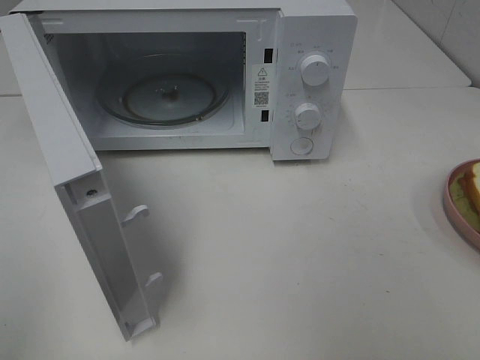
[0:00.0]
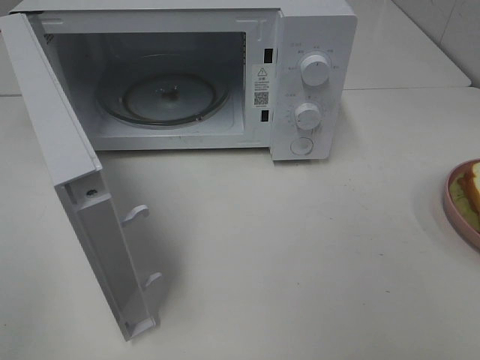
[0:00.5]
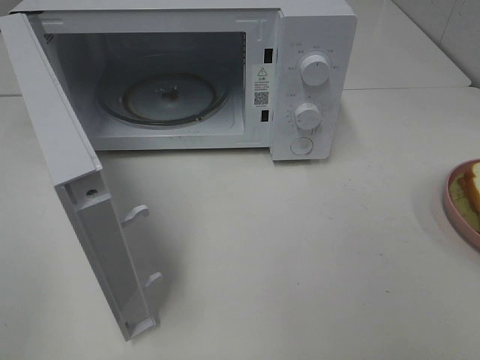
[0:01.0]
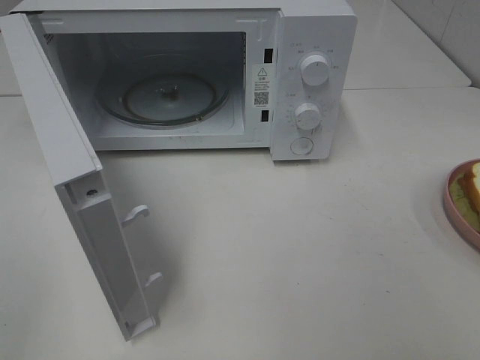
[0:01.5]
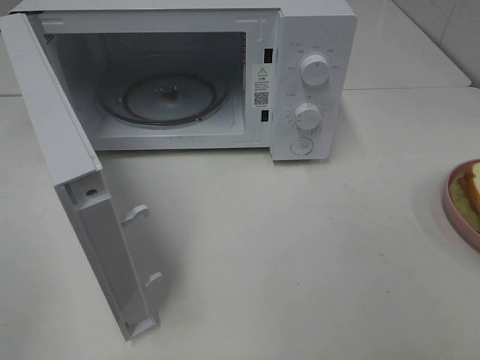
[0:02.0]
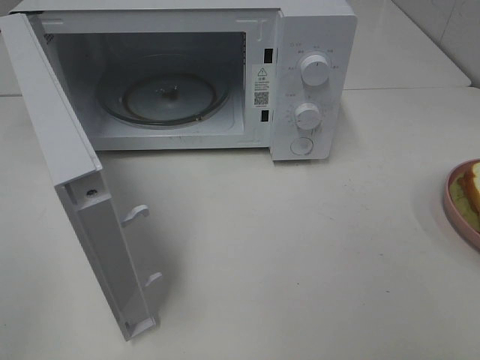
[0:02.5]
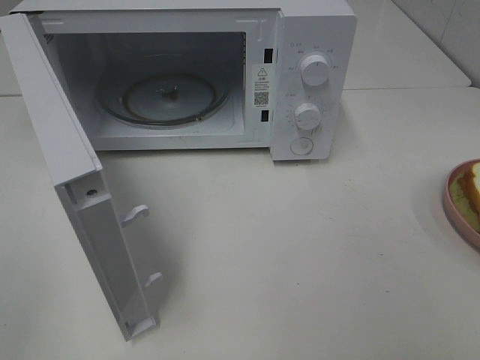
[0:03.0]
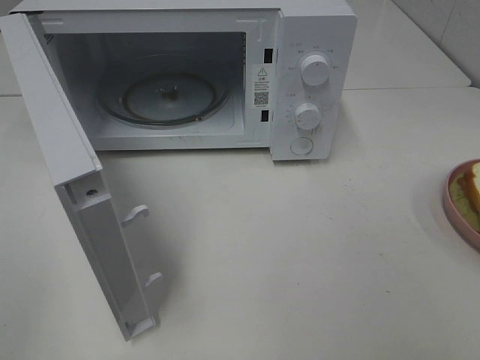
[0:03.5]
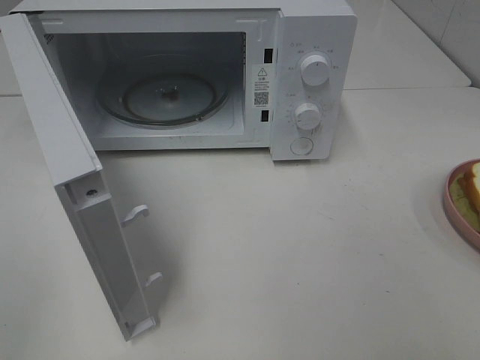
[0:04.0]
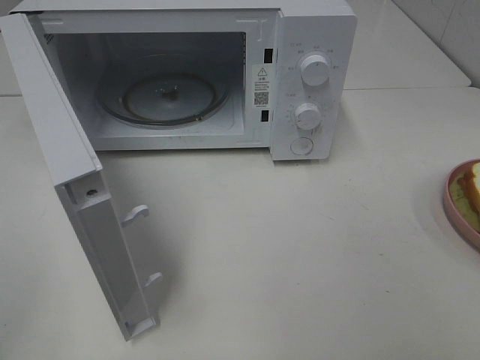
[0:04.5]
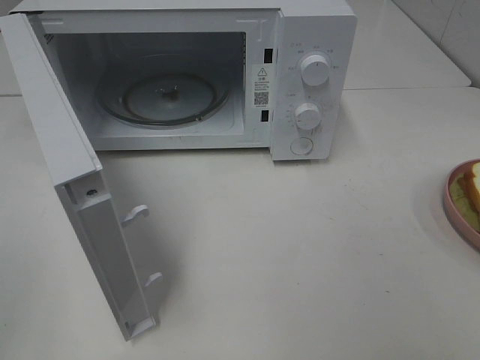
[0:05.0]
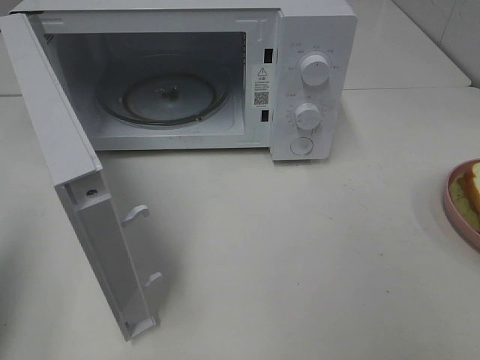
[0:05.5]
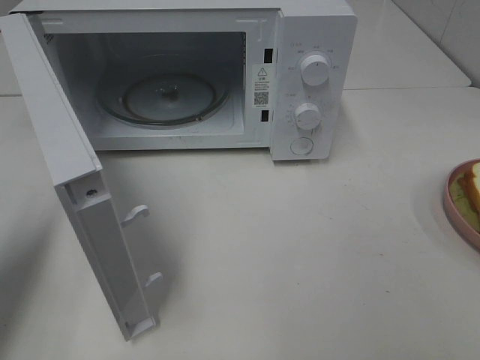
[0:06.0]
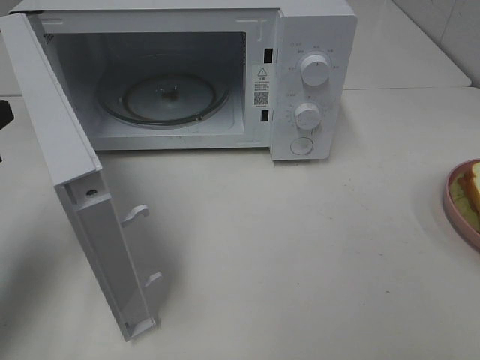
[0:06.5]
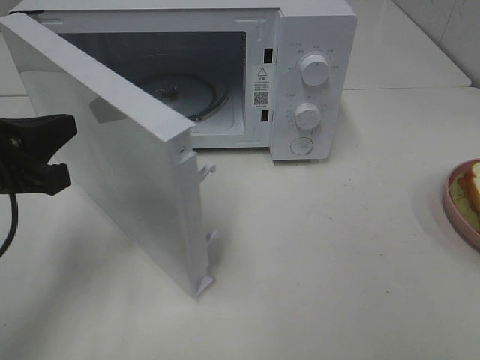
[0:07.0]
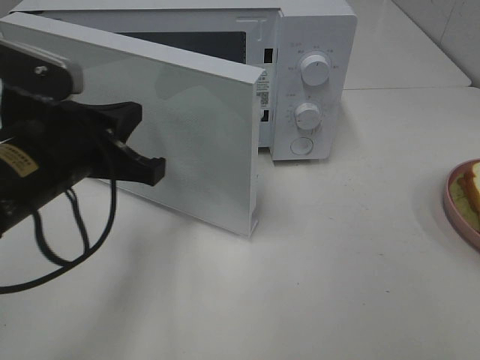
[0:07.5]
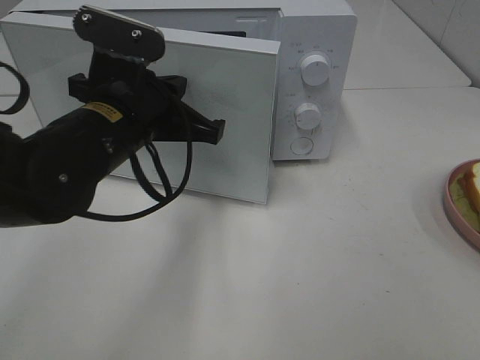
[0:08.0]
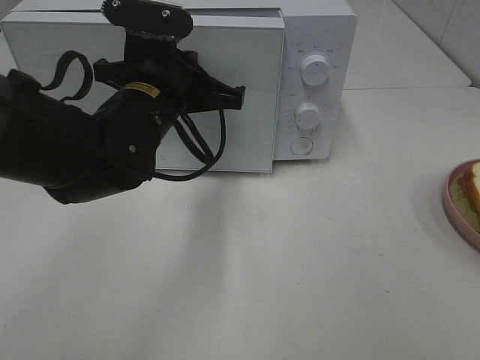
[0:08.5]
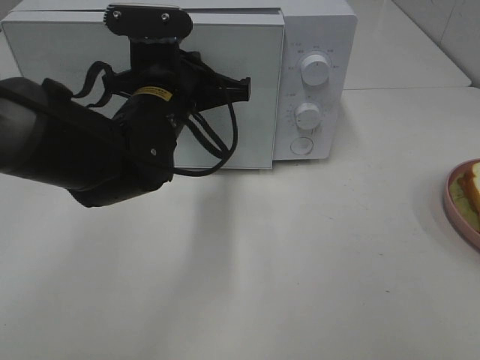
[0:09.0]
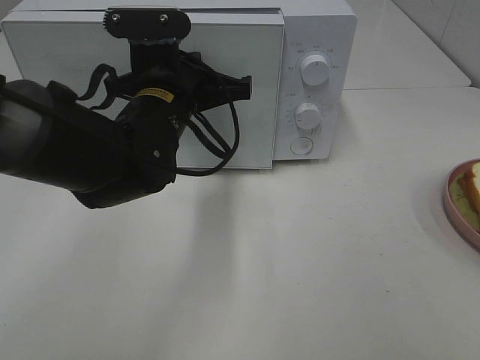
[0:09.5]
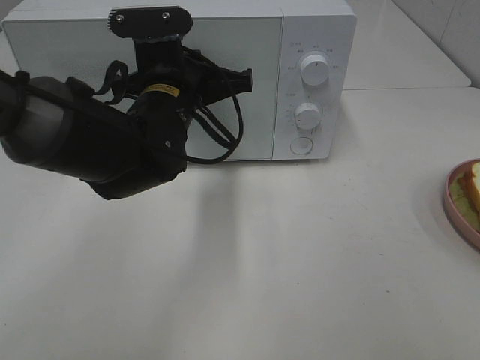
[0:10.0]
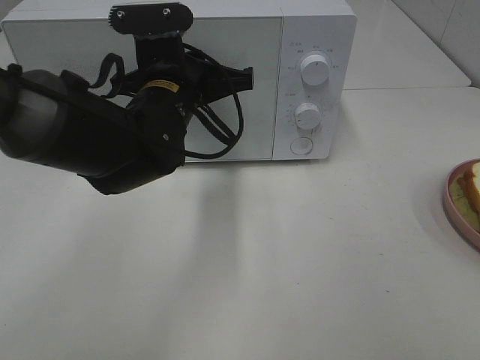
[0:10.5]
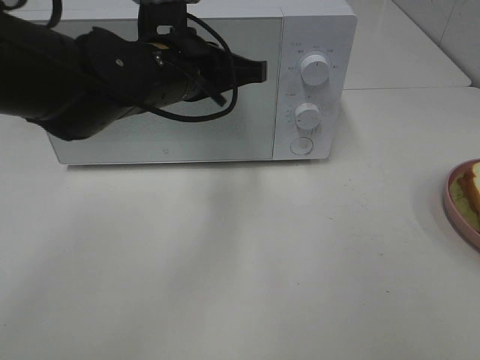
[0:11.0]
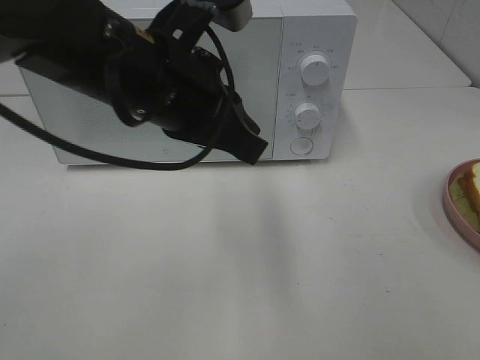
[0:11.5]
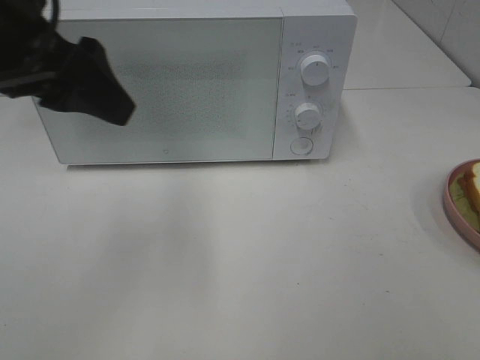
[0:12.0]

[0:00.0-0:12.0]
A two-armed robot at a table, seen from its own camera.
Task of the whole recording: Heat Sandwich.
Step, 0:00.0 to 0:11.5: Left hand: close the microwave door.
0:02.0 to 0:04.0: Both grippers stay about where they are.
0:04.0 to 0:06.0: The left gripper goes roughly 20 cm forward, and closes up.
0:06.0 to 0:08.0: The left gripper moves to the right, some 20 cm.
0:08.0 to 0:10.0: The left gripper moves forward, approximately 5 cm.
0:10.0 to 0:12.0: The left gripper travels upward, to the left and backward by some 20 cm, and opens its fingers.

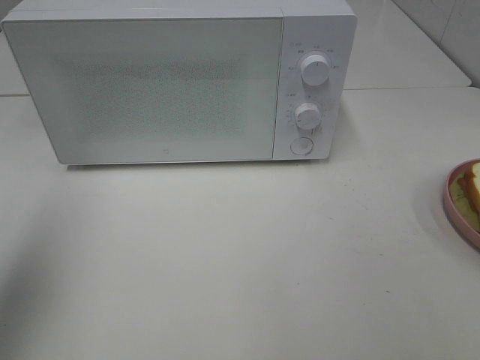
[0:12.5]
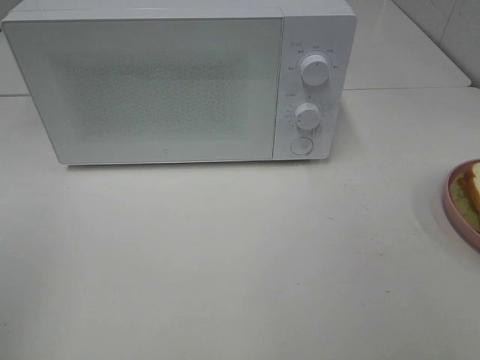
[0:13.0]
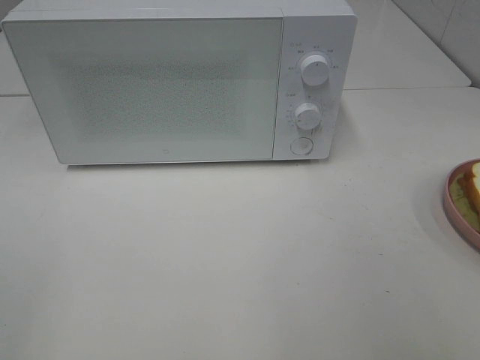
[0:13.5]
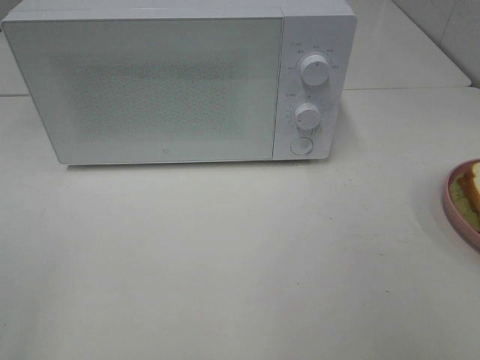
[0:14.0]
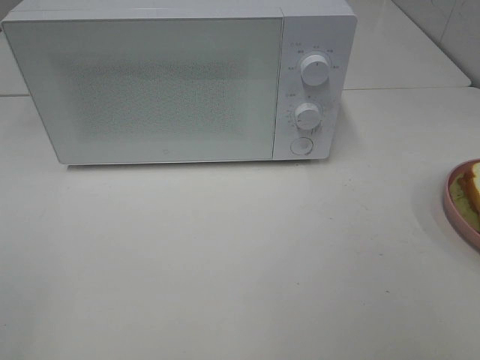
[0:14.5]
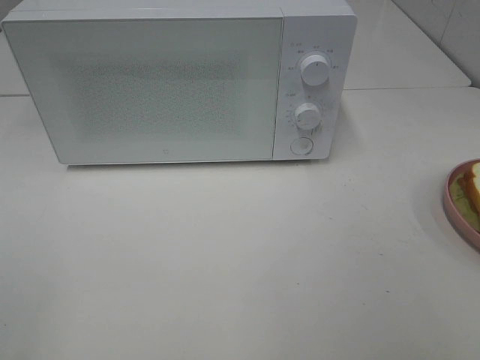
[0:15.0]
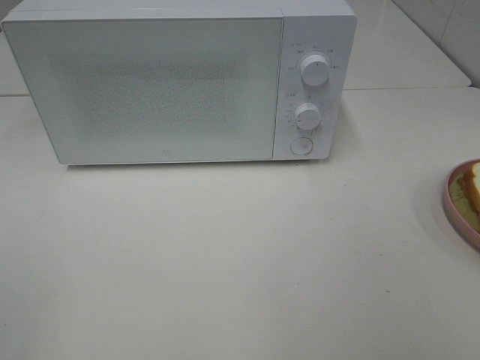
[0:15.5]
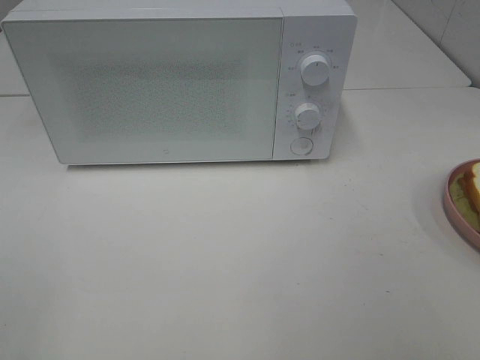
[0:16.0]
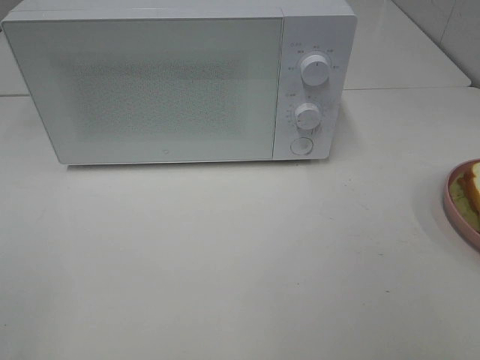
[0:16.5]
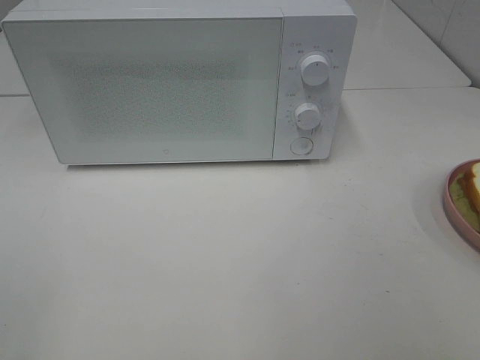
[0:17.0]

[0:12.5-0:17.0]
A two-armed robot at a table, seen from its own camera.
Task of the whole recording: Heat Sandwich.
0:12.5 to 0:14.5: The left gripper is displaced backward by approximately 15 cm.
0:14.5 to 0:17.0: Neither gripper changes place.

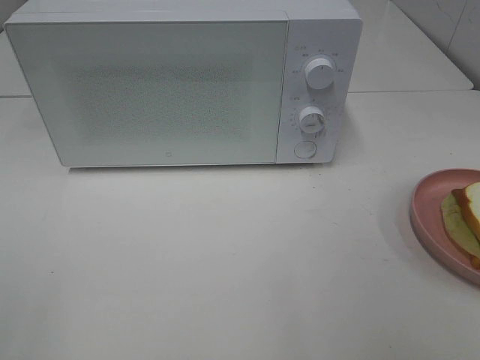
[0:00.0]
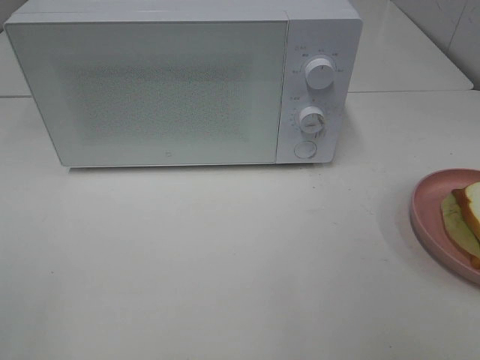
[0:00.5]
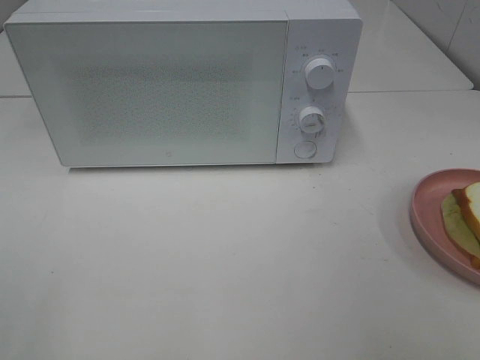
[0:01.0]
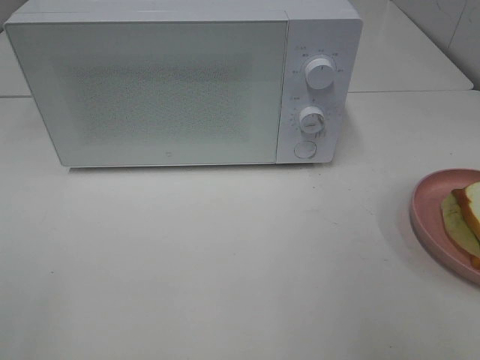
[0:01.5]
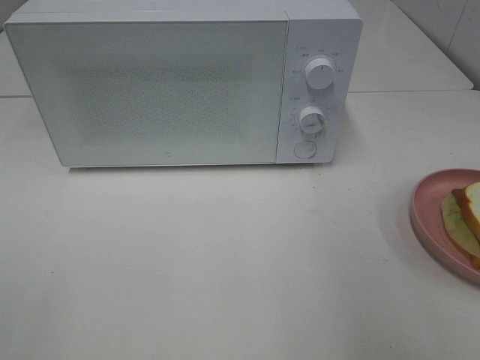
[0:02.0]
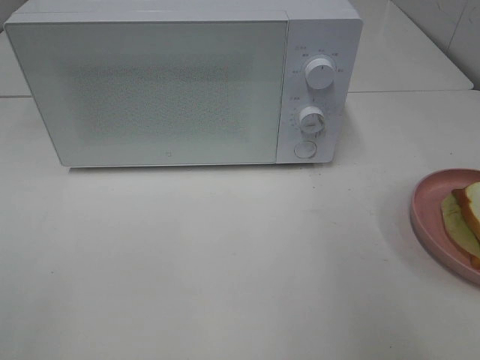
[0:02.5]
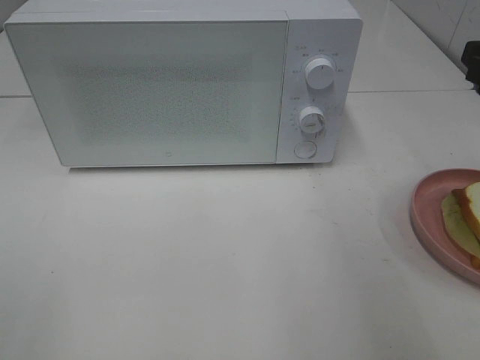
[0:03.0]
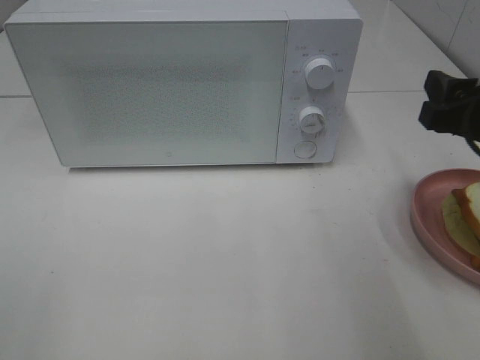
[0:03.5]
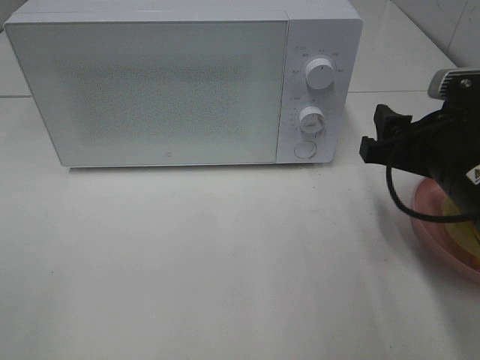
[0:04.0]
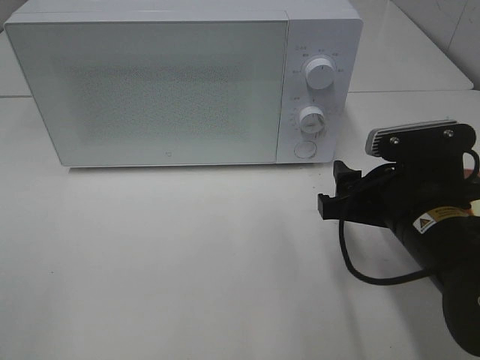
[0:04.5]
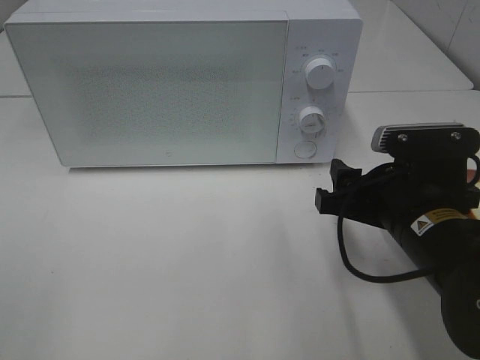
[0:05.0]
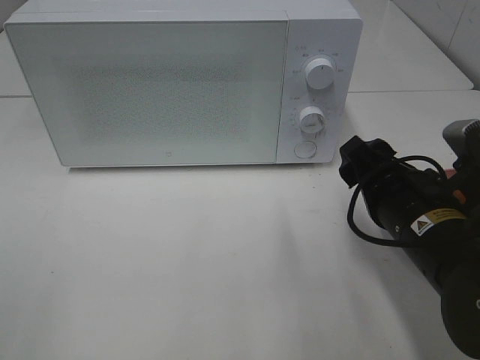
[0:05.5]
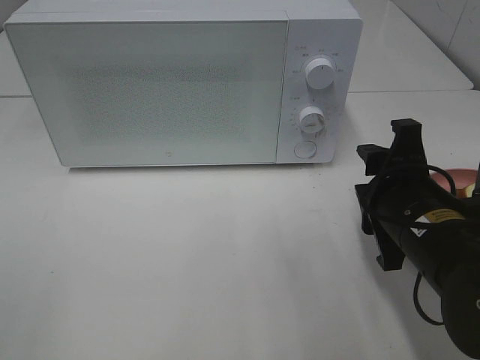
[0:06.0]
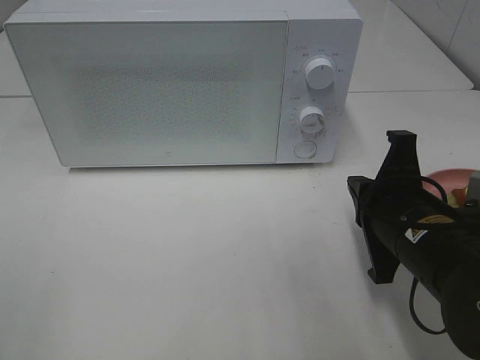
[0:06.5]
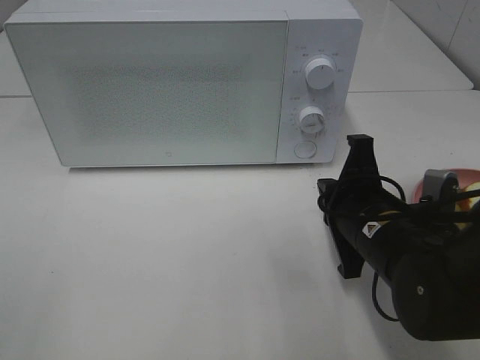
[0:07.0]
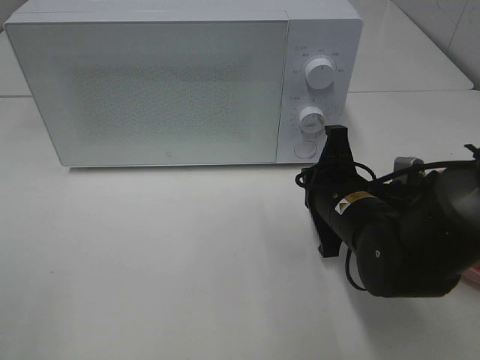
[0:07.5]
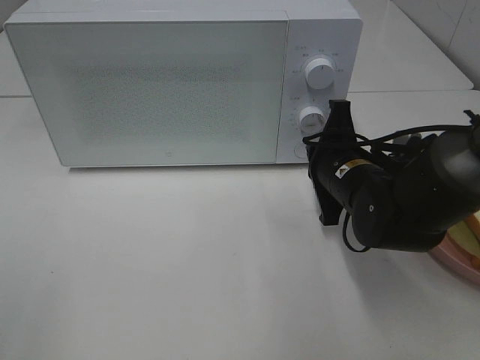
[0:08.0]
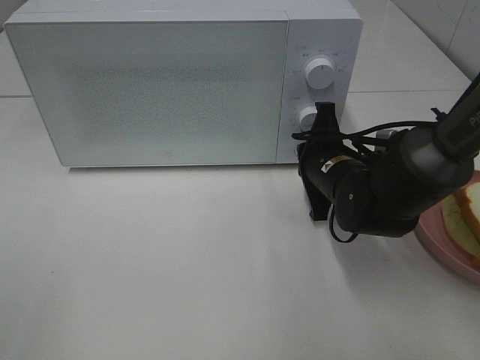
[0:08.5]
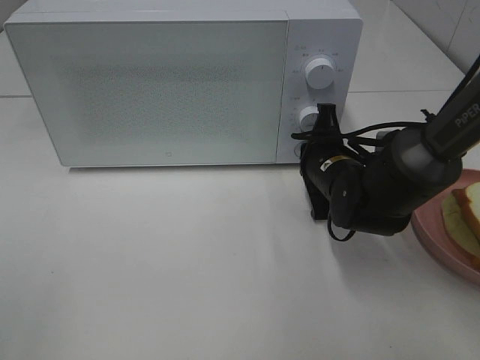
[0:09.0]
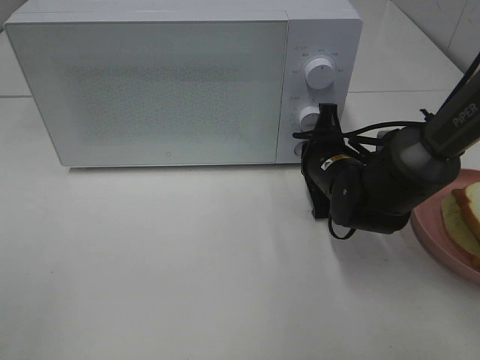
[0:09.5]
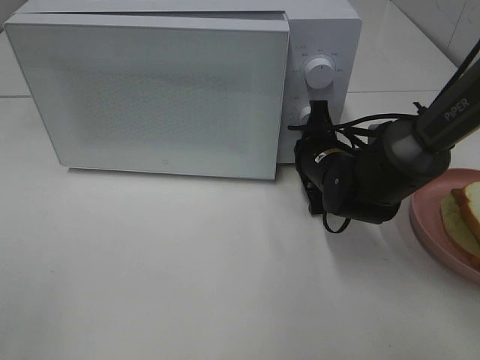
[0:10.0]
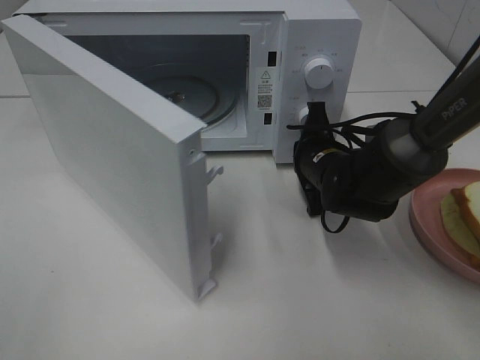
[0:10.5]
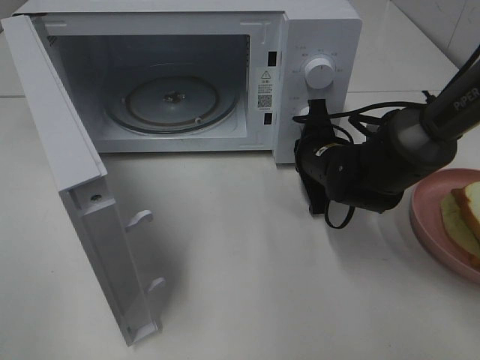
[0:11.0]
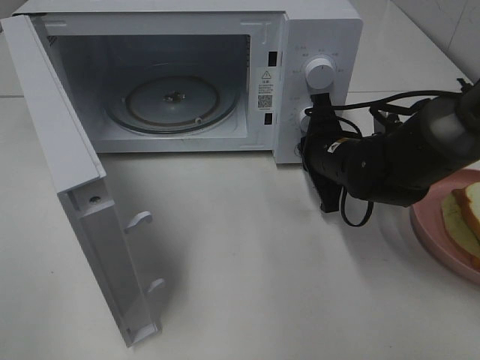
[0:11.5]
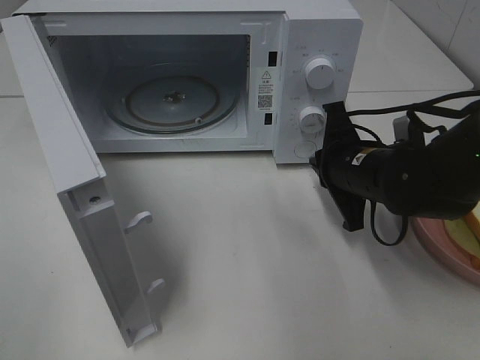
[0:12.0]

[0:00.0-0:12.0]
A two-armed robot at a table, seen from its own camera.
Task of the whole recording: Heat Sandwich.
Step, 0:00.0 to 0:11.5: Right hand: press the switch.
0:02.0 to 0:04.0: The right gripper travels downward, forward and to the left by approximately 20 cm.
0:04.0 to 0:06.0: The right gripper changes place by approximately 5 cm.
0:06.0 to 0:08.0: The right gripper is displaced forward by roughly 10 cm, and closes up.
0:08.0 to 0:10.0: The right gripper goes about 5 cm forward.
0:10.0 to 0:12.0: The right gripper is displaced backward by some 5 cm.
